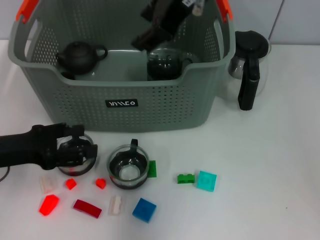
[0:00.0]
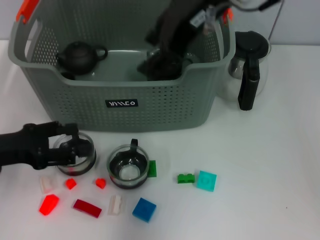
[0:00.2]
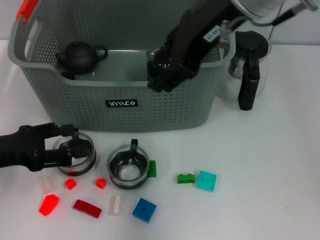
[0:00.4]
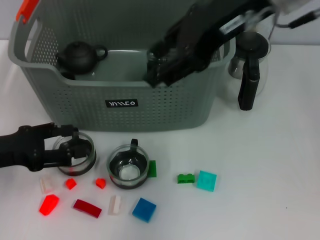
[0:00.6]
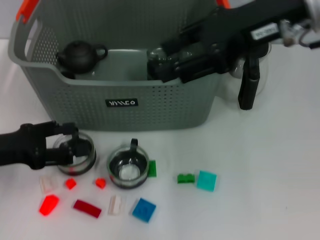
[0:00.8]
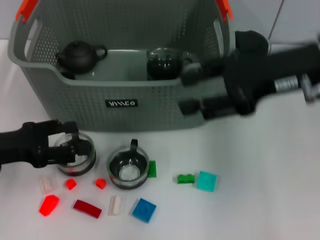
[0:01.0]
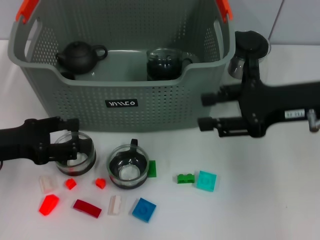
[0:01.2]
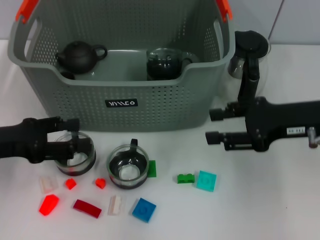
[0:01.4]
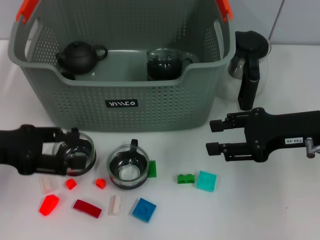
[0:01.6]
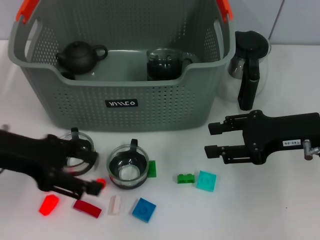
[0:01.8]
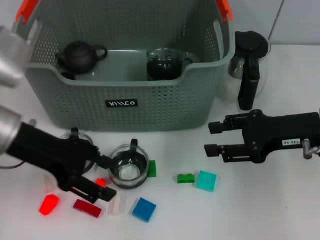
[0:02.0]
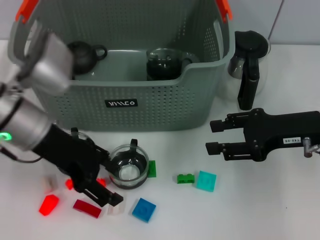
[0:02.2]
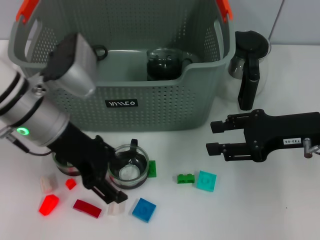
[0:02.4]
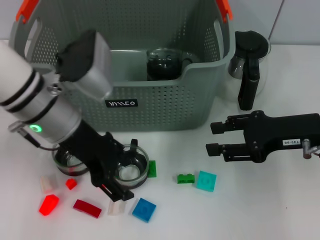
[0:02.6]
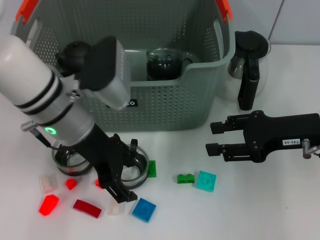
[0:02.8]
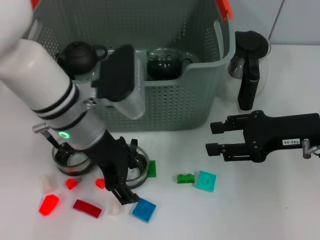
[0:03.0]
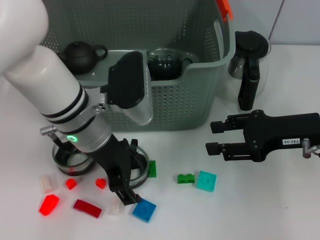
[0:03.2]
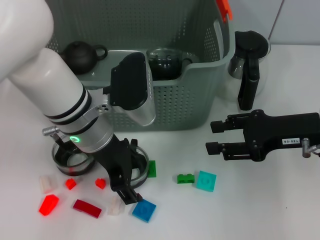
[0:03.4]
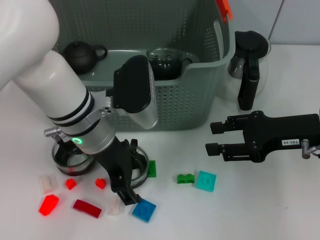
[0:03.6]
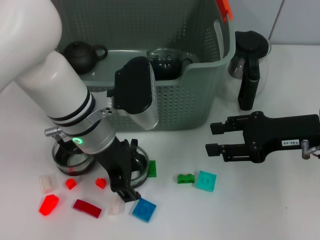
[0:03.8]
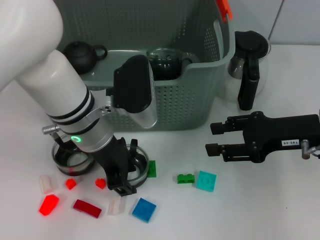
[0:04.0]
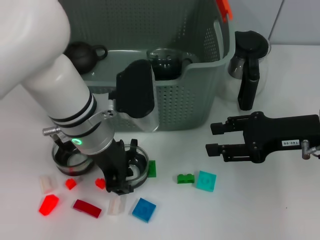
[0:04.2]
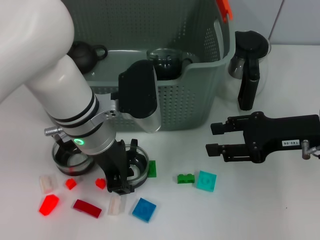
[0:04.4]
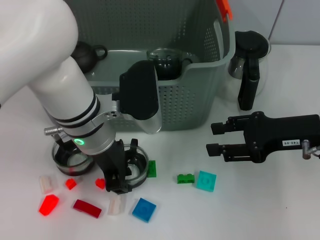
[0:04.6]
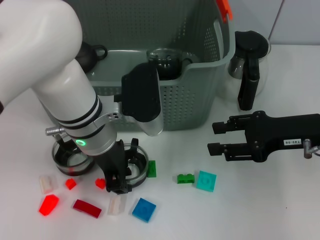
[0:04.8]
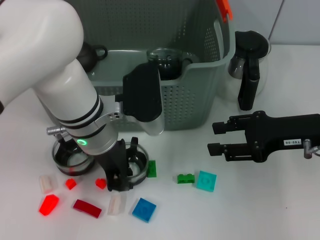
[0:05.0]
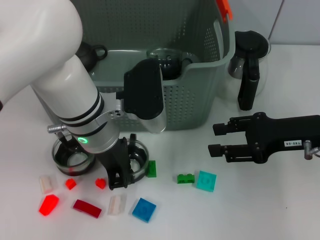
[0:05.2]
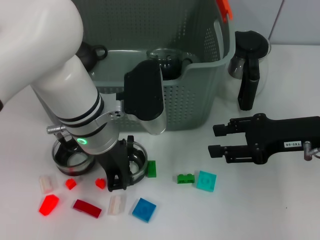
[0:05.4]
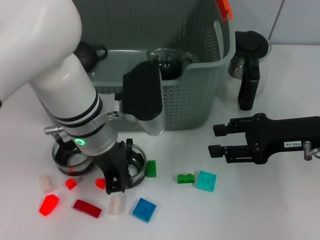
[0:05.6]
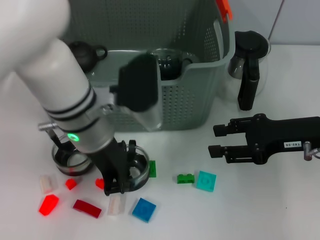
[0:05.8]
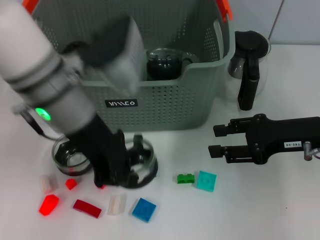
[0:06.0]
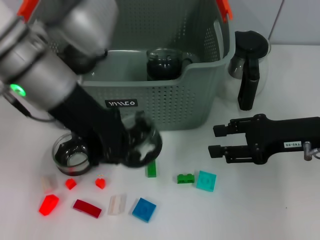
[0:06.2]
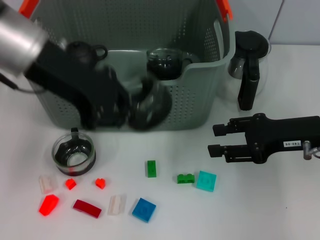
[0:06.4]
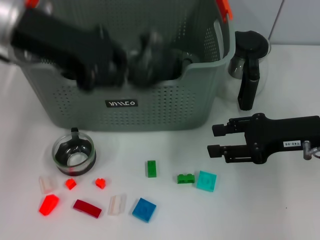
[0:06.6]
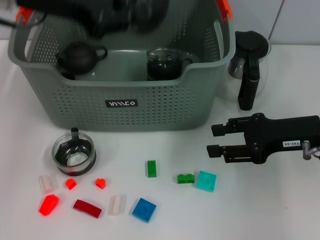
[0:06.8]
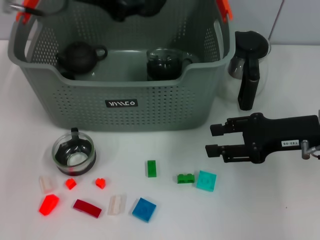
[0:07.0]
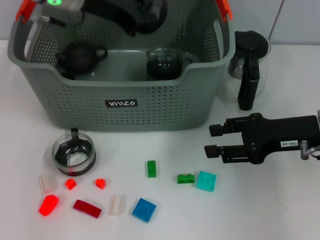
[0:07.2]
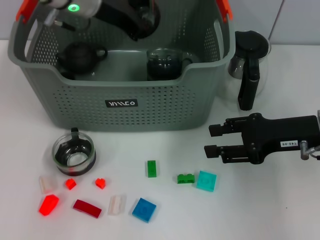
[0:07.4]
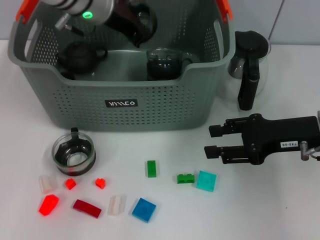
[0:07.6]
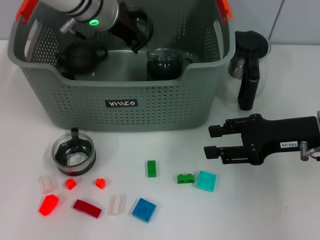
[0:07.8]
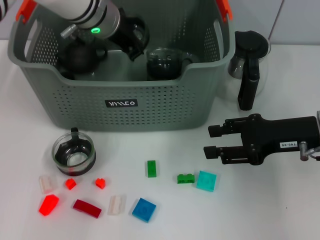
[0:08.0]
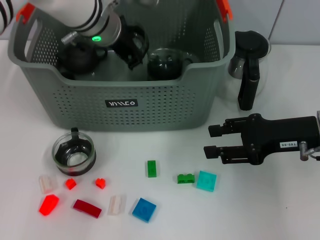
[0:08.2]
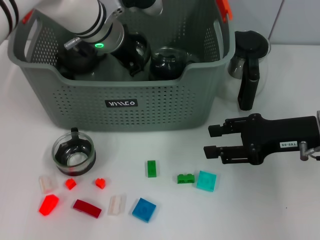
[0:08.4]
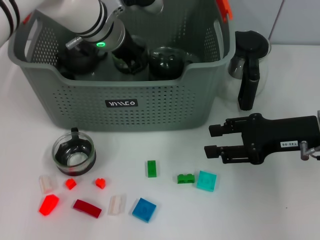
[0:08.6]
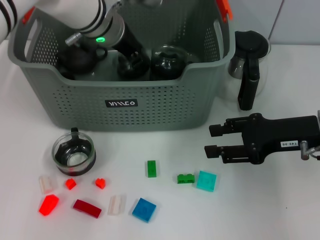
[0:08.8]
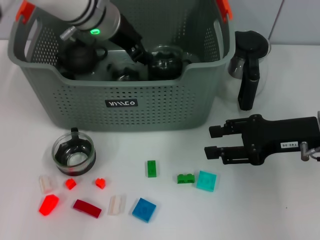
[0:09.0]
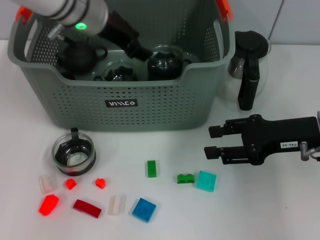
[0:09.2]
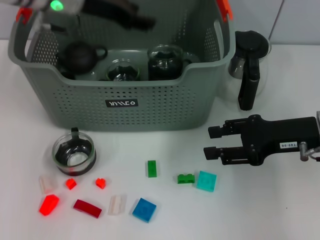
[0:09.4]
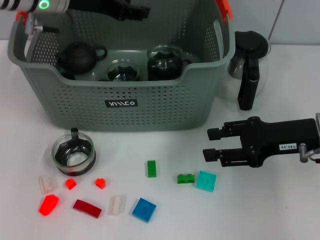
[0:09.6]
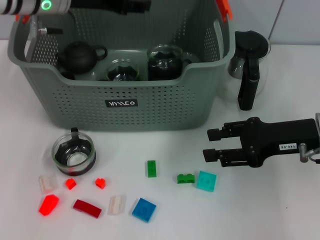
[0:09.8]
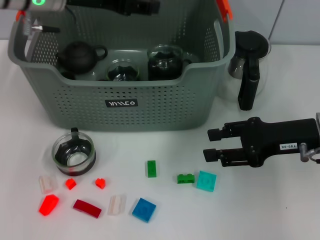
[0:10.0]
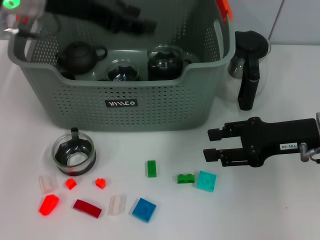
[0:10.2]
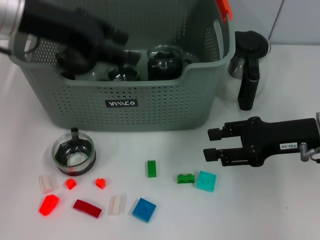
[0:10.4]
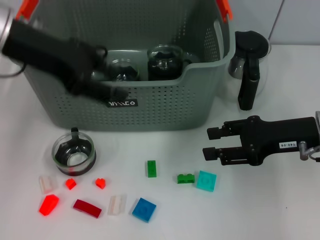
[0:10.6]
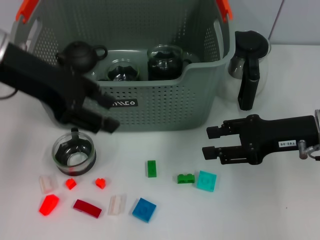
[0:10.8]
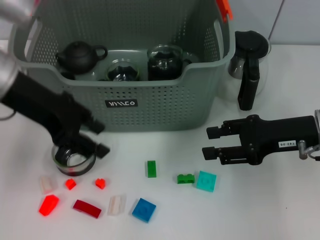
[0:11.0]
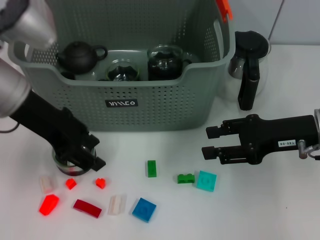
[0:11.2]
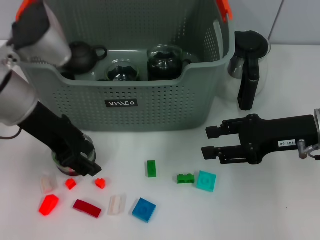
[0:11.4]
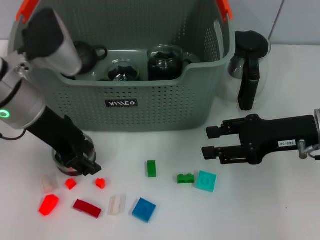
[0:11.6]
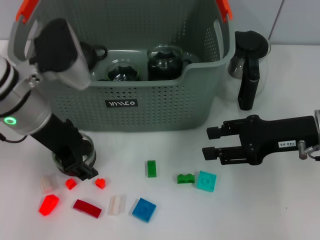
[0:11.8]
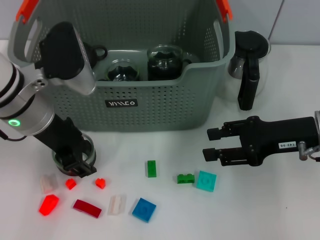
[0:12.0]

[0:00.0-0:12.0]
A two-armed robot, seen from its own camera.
Task of the whole recording: pick up the teacup on the table and place it into the storage bin, pick up the block on the table and place it into the storage bin.
Step, 0:00.8 to 0:05.2: Grasp the cup with left gripper.
Step, 0:05.4 to 0:09.2: Place the cup in the storage box with left gripper.
0:00.0 to 0:01.6: The right gripper moves downward and to the right, roughly 25 cm.
0:01.6 to 0:03.0: The left gripper is displaced to the right by some 20 cm.
0:03.0 to 0:04.4: The left gripper closes its fingers.
0:04.4 to 0:06.0: The left gripper shifts some 5 cm upward, and closes up.
0:06.0 to 0:07.6: The left gripper is displaced forward by roughly 15 cm.
0:07.6 to 0:09.0: The left gripper opens up.
0:09.0 to 0:10.4: The left gripper is displaced to the left, backward and upward by roughly 15 cm.
0:10.4 to 0:12.0: The left gripper travels downward by about 10 cm.

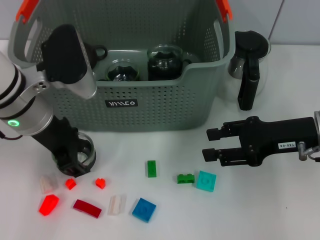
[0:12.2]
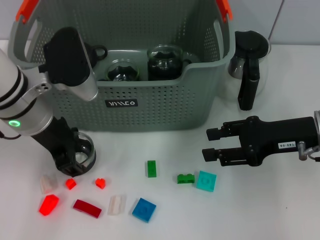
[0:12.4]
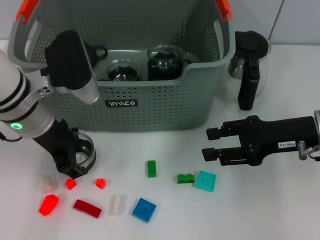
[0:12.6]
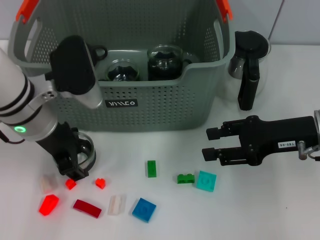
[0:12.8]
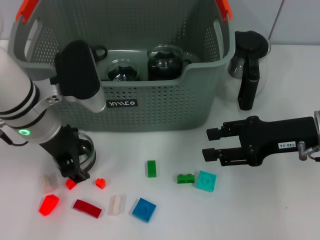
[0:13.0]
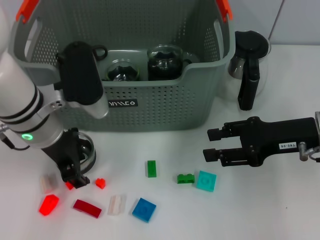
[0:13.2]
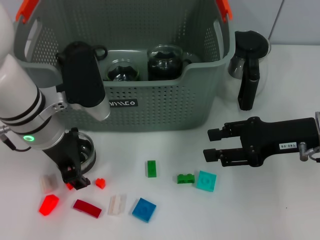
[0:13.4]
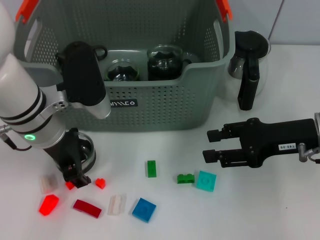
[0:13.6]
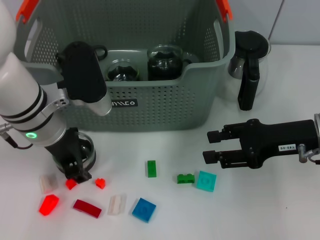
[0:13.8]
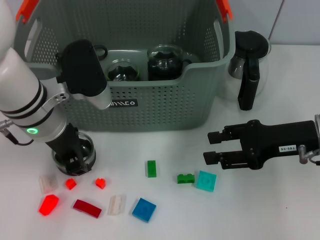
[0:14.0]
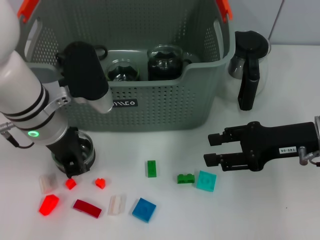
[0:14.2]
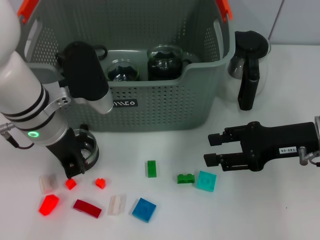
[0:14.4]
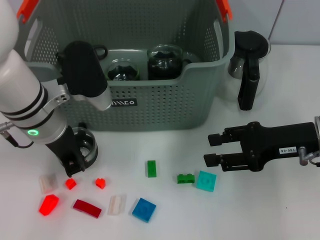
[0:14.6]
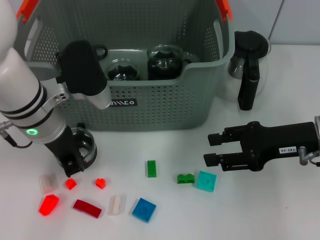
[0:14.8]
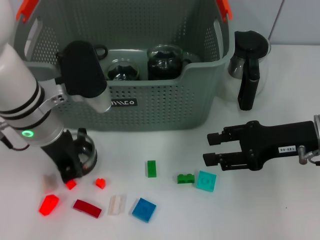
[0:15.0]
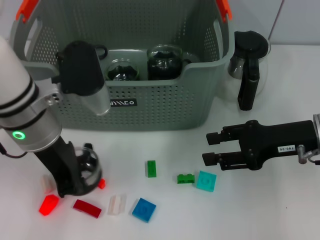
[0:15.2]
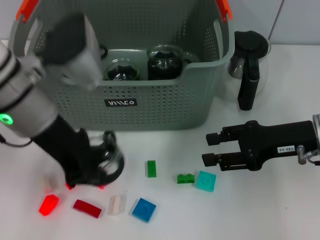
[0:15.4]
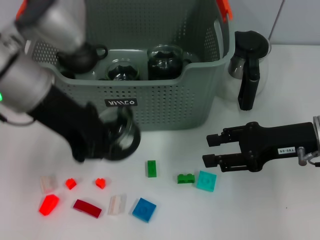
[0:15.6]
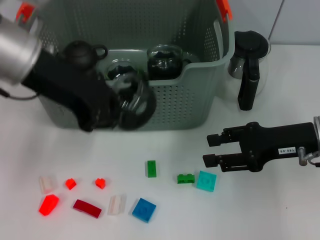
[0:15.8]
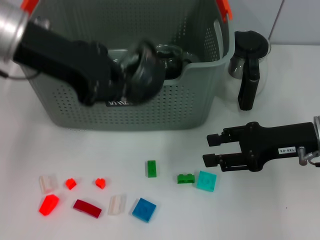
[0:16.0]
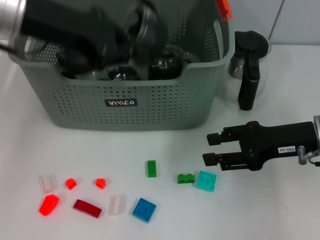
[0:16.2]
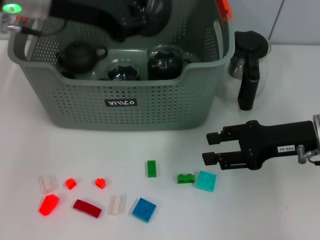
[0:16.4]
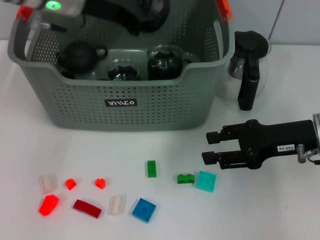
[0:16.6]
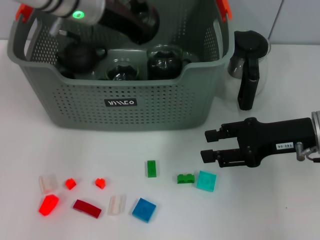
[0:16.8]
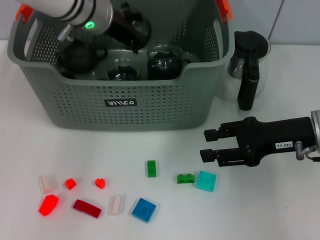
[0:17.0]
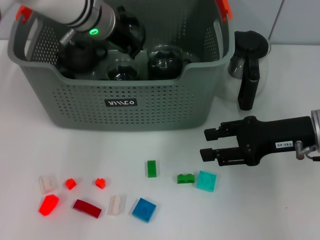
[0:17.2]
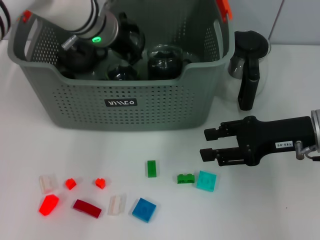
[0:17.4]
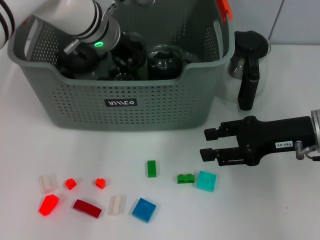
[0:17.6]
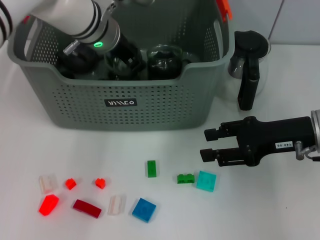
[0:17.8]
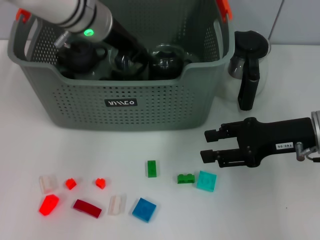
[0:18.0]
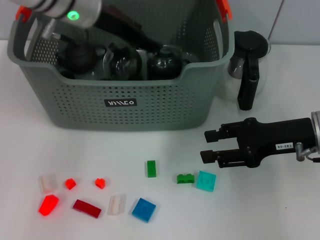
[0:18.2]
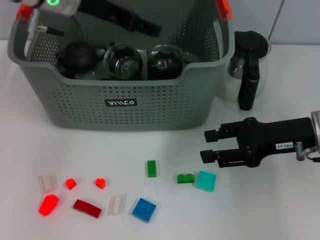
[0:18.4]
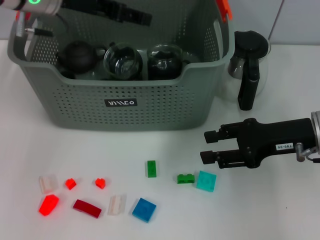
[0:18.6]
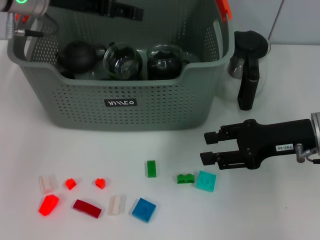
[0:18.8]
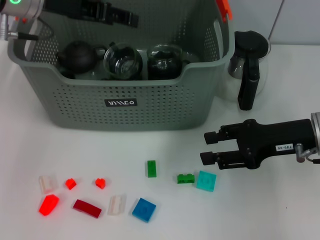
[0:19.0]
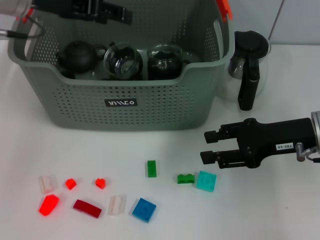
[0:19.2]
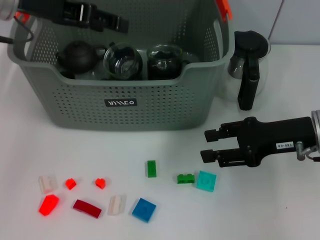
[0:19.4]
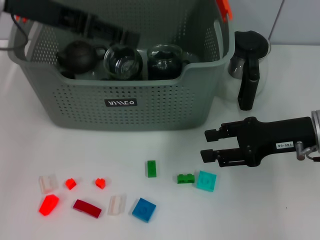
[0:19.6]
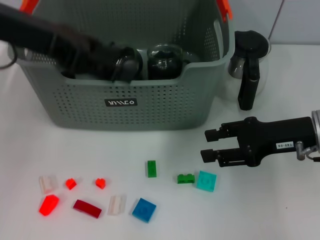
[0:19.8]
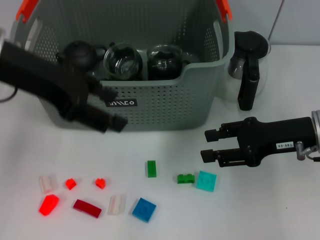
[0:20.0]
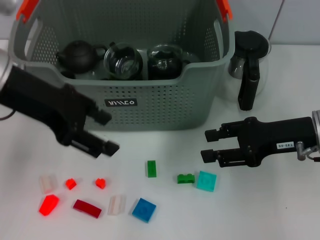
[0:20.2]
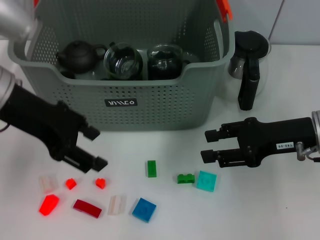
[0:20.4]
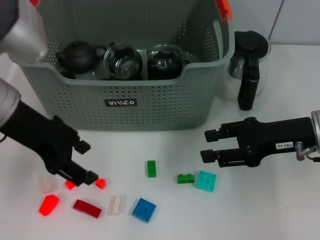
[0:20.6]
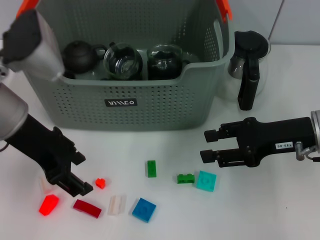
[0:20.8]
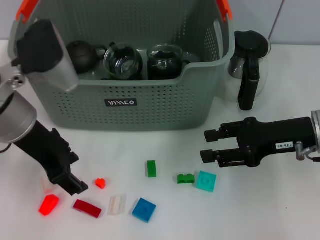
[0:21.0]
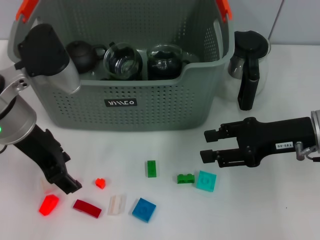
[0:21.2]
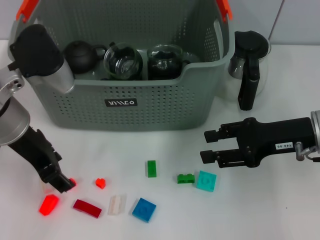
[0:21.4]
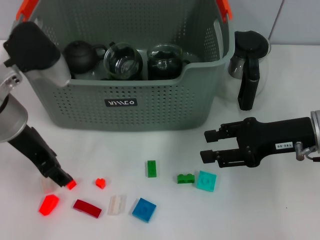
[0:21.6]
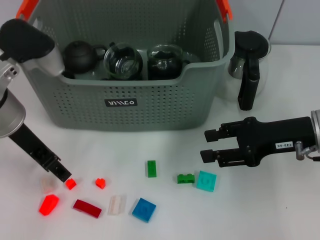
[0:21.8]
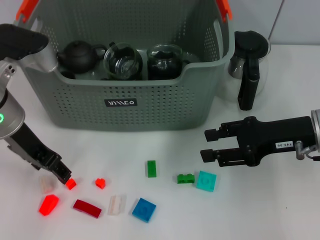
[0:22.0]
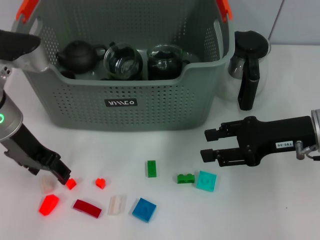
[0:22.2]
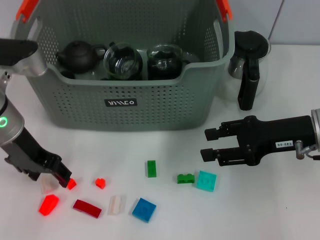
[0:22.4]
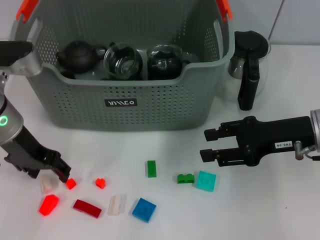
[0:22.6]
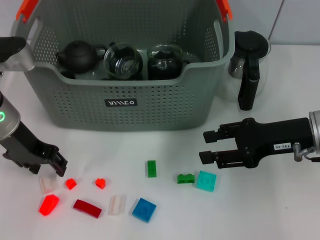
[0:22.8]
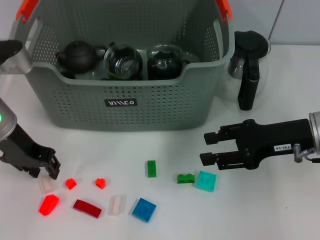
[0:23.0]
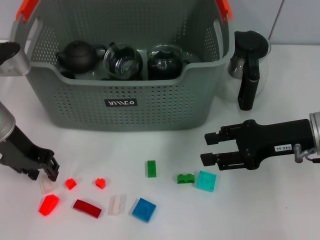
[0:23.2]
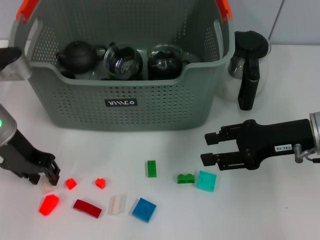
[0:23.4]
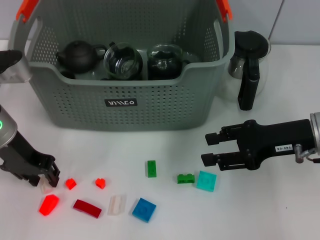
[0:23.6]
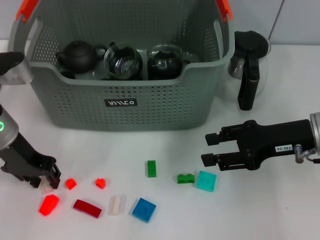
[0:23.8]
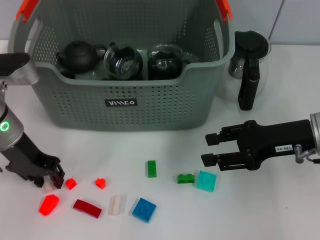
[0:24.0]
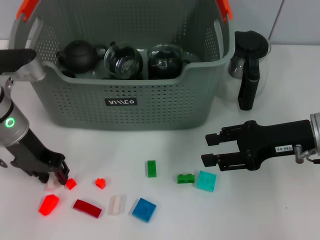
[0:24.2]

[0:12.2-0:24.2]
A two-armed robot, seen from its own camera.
Task of the whole recording: pick up the teacup on the table and place it into the storage bin, pick up the block on the table and place it into the storage bin.
Step, 0:12.2 to 0:14.6: Grasp the cup with left gripper.
Step, 0:14.8 to 0:19.2: Place the cup in the storage box with left gripper.
0:12.2 to 0:13.8: The grippers make only small movements.
0:13.8 to 0:15.2: The left gripper closes.
0:15.2 to 0:16.6: The left gripper goes some 15 cm forward and upward.
0:16.6 to 0:18.2: The left gripper opens its fingers.
0:18.2 to 0:19.8: The left gripper shifts roughly 15 cm backward, to the left and upward.
0:19.8 to 0:21.2: The left gripper moves downward, approximately 10 cm.
0:21.2 to 0:22.6: The left gripper changes place by about 5 cm.
0:22.6 to 0:24.2: The left gripper closes its fingers.
